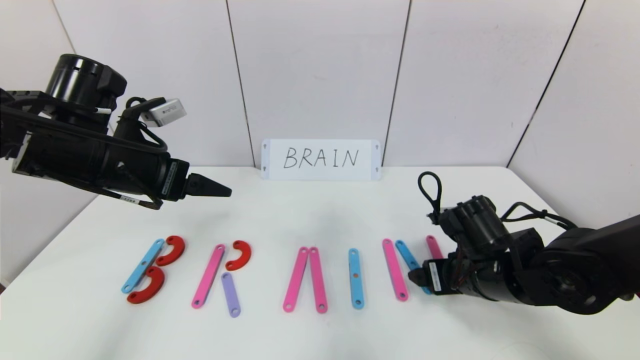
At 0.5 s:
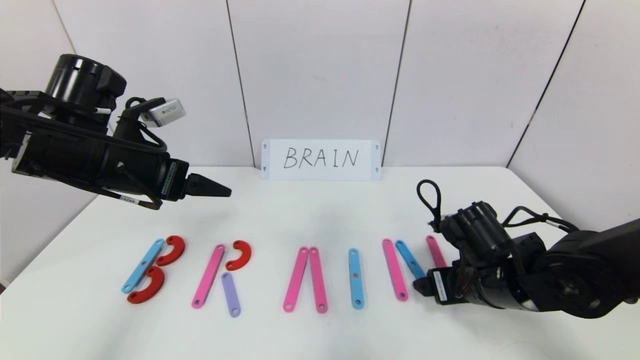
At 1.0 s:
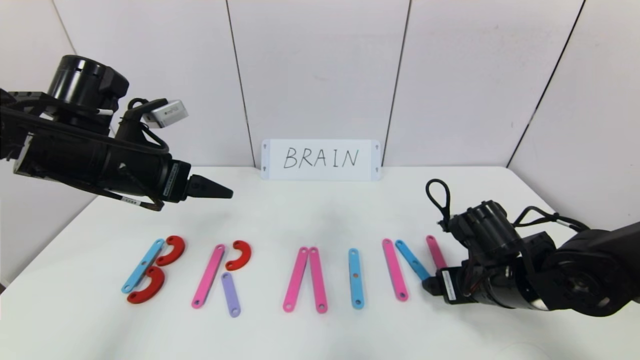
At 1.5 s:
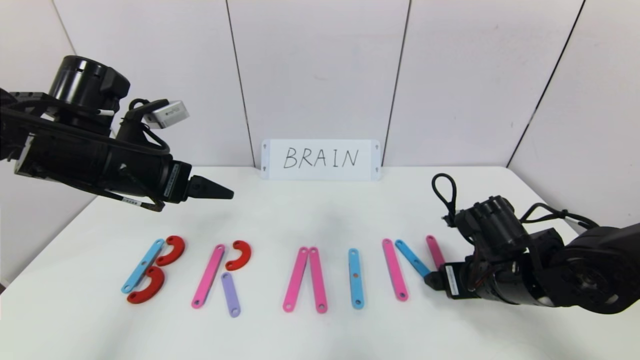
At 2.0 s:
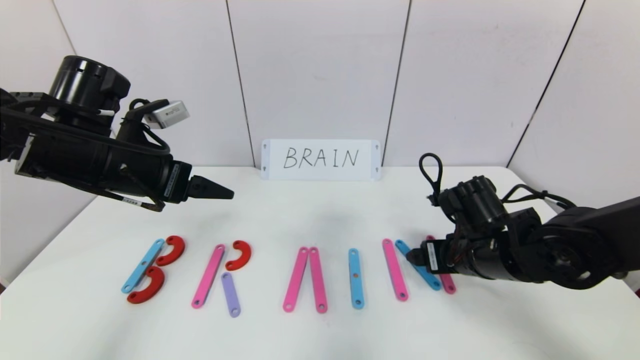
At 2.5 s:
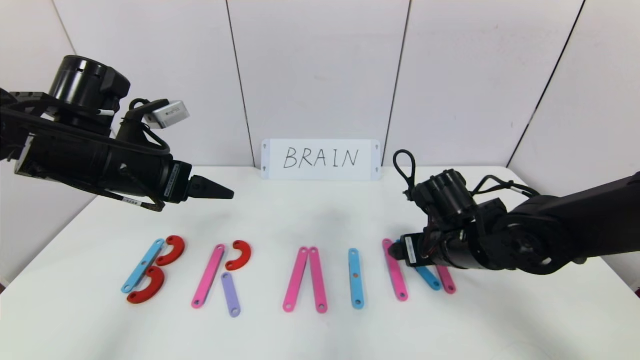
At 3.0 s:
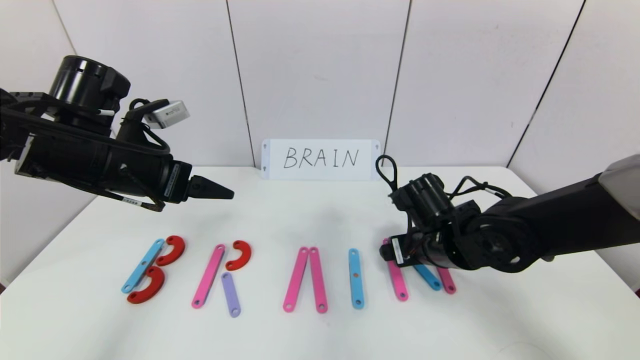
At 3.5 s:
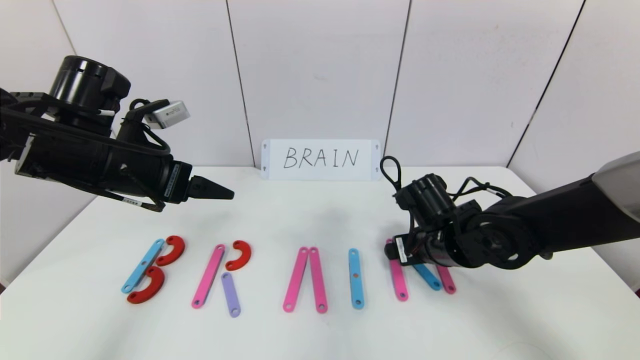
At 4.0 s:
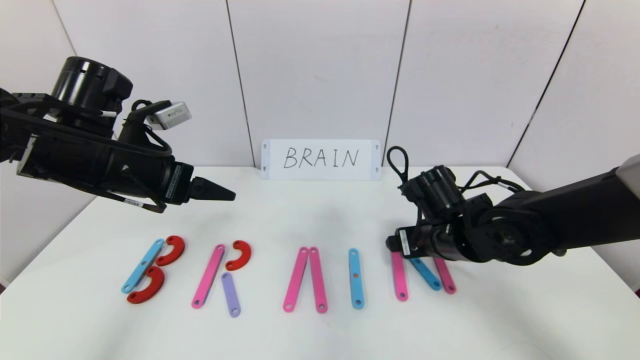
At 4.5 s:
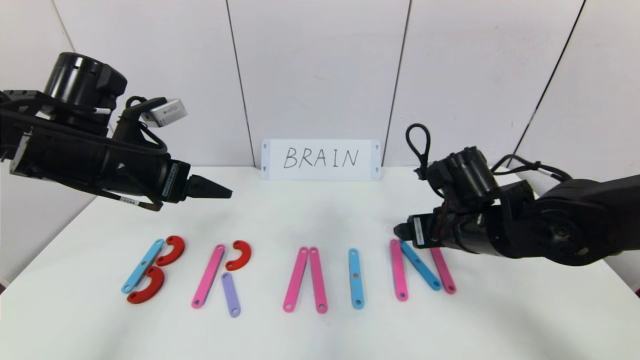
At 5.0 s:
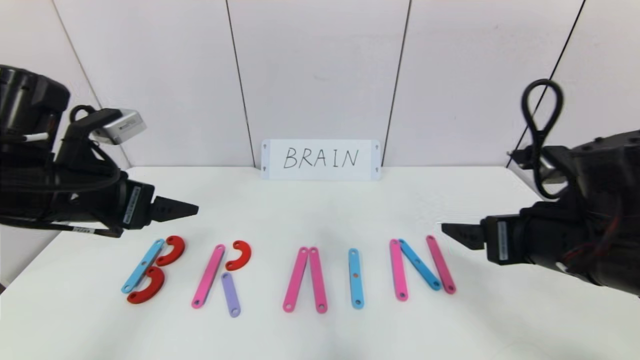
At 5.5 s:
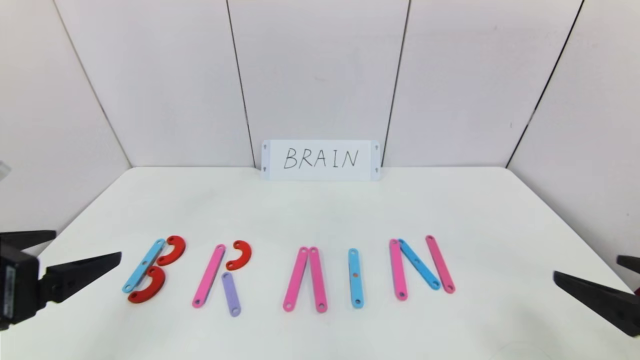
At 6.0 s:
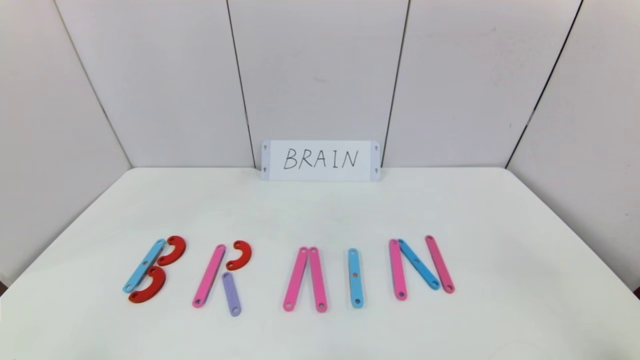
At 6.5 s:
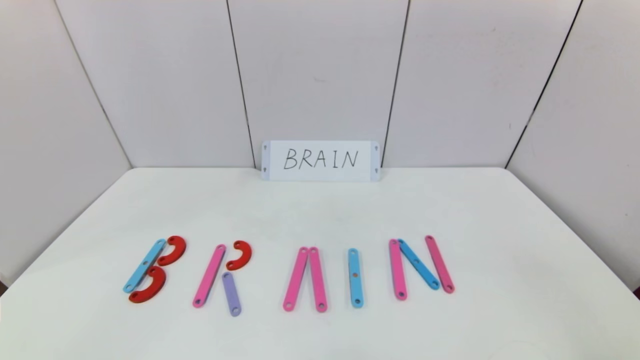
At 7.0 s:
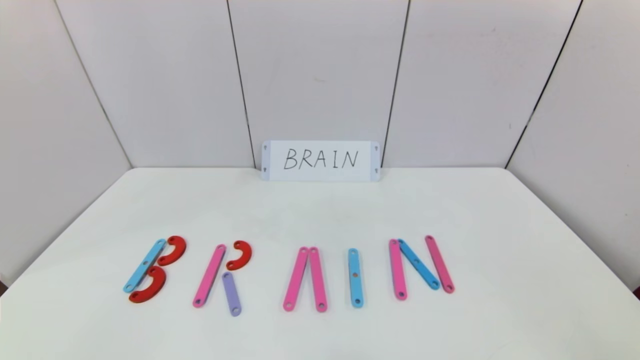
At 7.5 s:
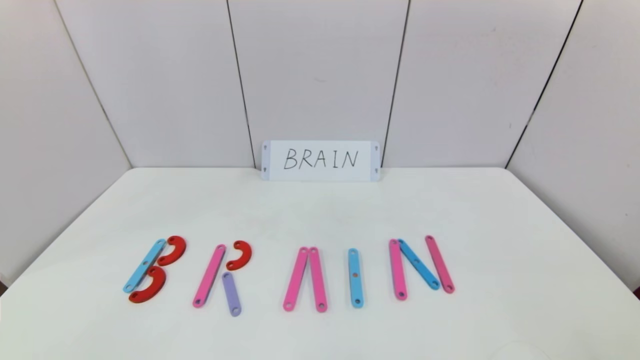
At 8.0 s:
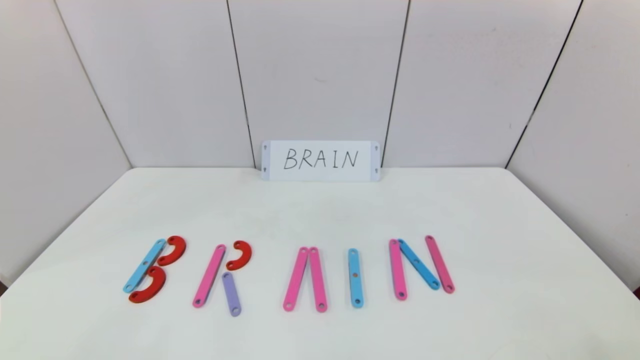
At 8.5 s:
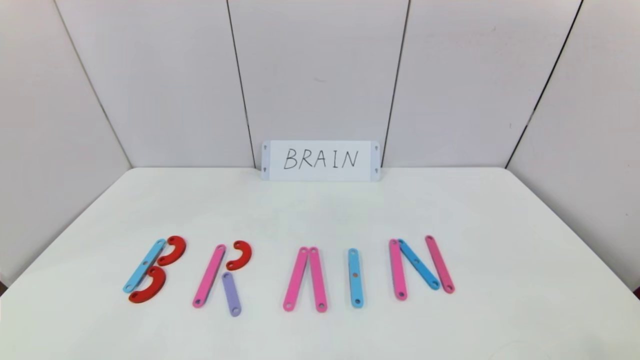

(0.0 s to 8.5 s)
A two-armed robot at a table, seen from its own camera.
Task of the whole recording: rearrange the word baai as brain.
0.0 s - 2.0 s: The grippers move only a little.
2.0 s - 4.0 s: The grippers make only small movements.
4.0 s - 6.5 s: The left gripper shifts about 35 cm backward. Meanwhile the right gripper shifts roughly 40 cm backward and to the right.
